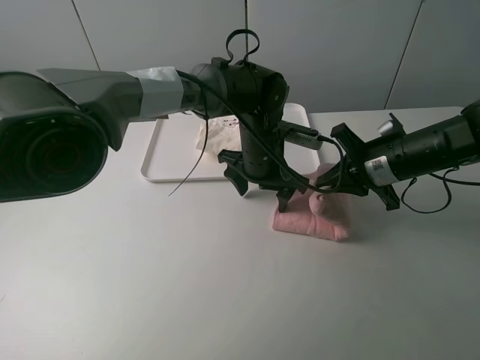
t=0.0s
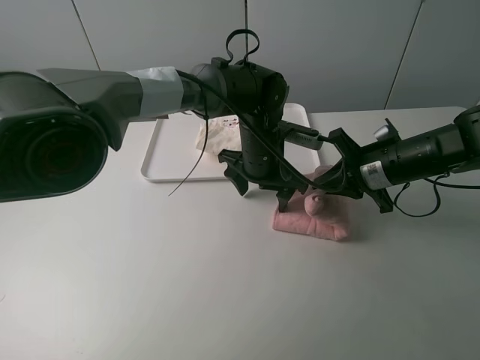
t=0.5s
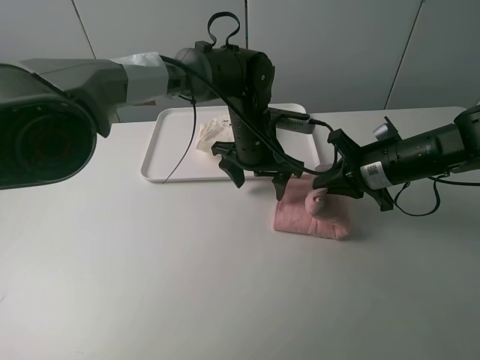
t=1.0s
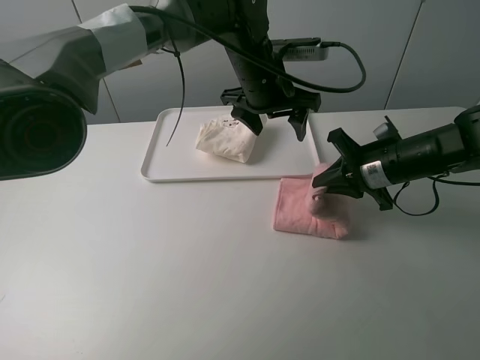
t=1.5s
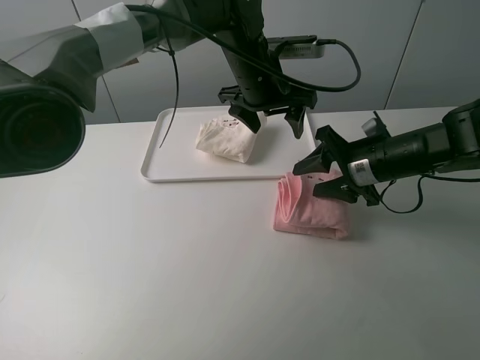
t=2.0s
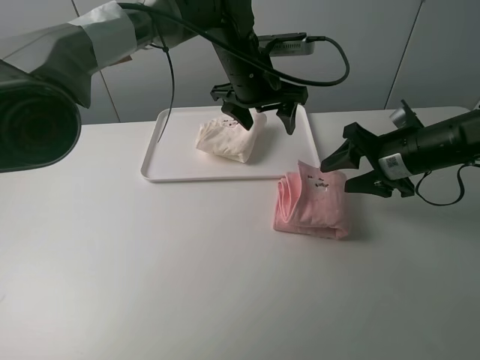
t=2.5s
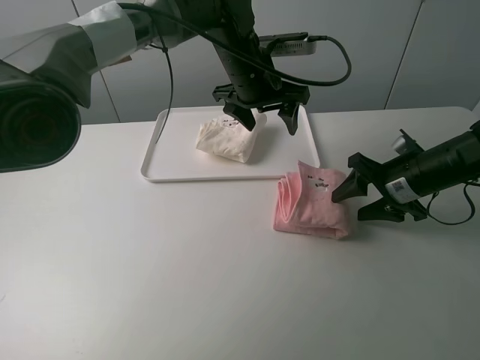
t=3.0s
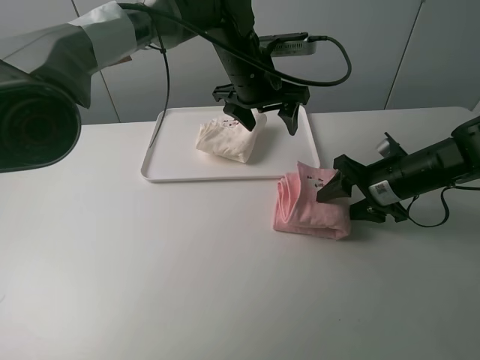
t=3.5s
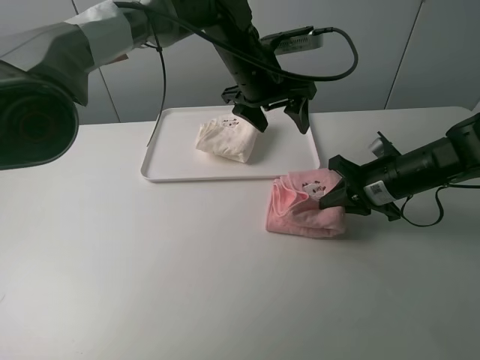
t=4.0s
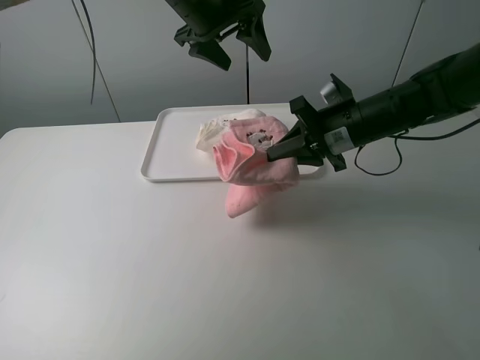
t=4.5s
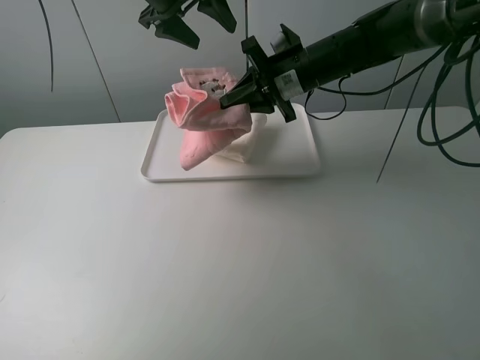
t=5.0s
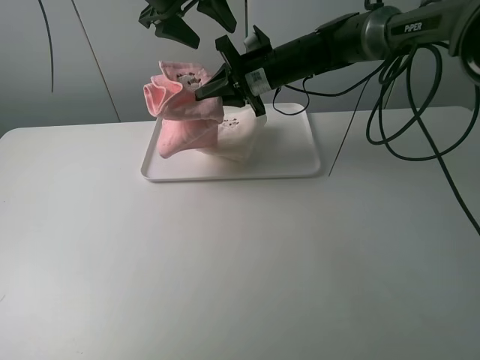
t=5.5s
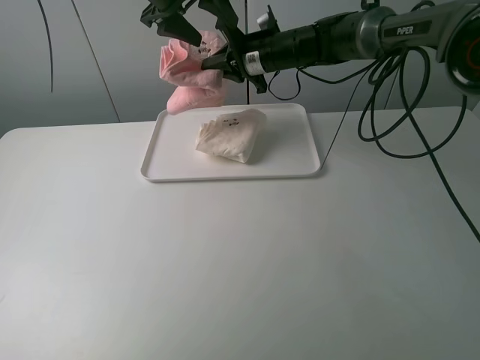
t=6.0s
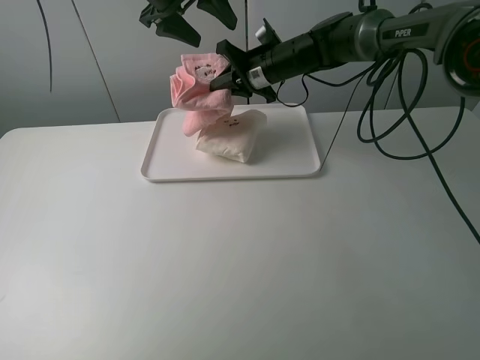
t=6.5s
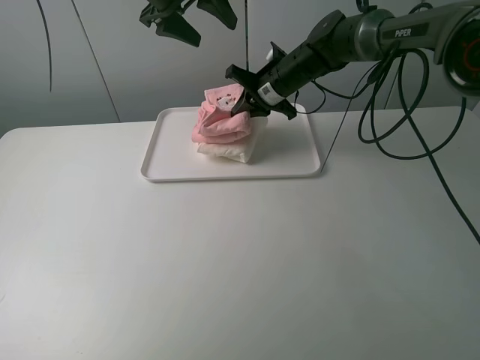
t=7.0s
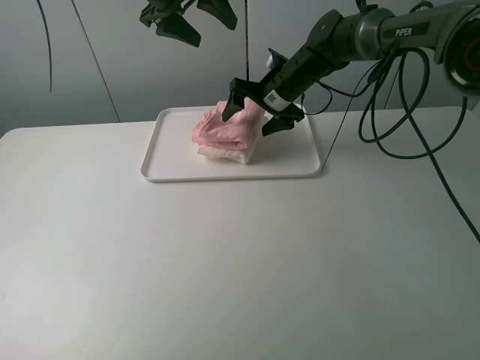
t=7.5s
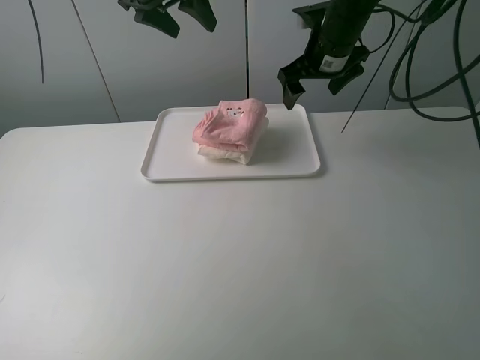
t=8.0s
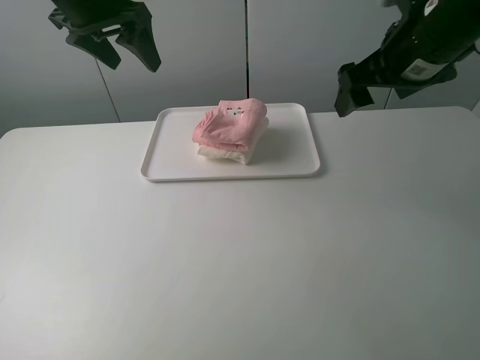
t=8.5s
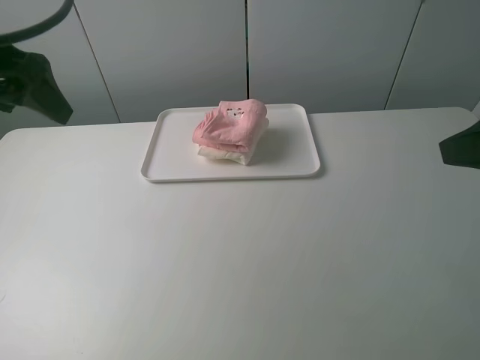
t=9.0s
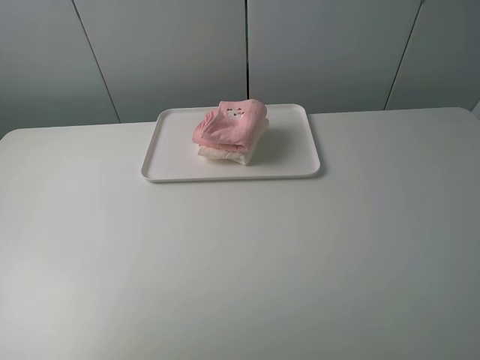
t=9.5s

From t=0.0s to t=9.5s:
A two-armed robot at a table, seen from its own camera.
Task of the whole recording: fold one of the towels by two grippers and place it on the tray,then fold another towel by two grippers and place it on the folded towel.
Step, from t=0.0s to t=2.0s: Fold the pink towel from right to left with right gripper.
Step, from t=2.5s to t=3.5s: Grasp the pink towel with the right gripper.
Step, from t=4.0s to t=7.5s: Place the pink towel on the white towel with the right gripper.
From t=0.0s to t=2.0s: The left gripper is displaced upward by some 10 cm. The right gripper opens its fingers.
From t=2.0s to t=4.0s: The right gripper closes.
From t=4.0s to t=5.5s: The left gripper is displaced to the left and upward by roughly 15 cm. The right gripper heads to the left, forward and upward, covering approximately 25 cm.
From t=5.5s to t=7.5s: The right gripper ends up approximately 5 cm from where it was, and opens its fingers.
From t=7.5s to t=9.5s: The left gripper is displaced backward and to the left by some 40 cm. Meanwhile the right gripper heads backward and to the right, covering roughly 50 cm.
